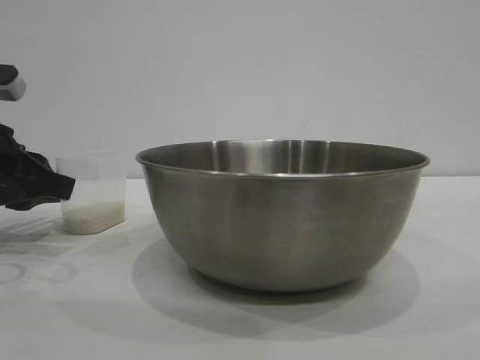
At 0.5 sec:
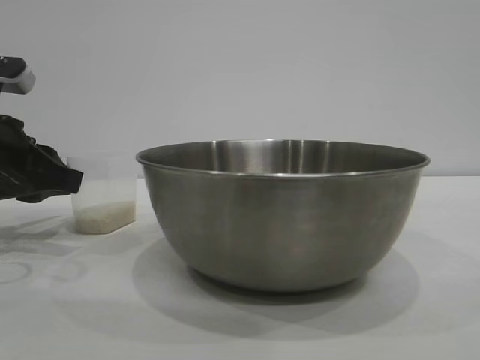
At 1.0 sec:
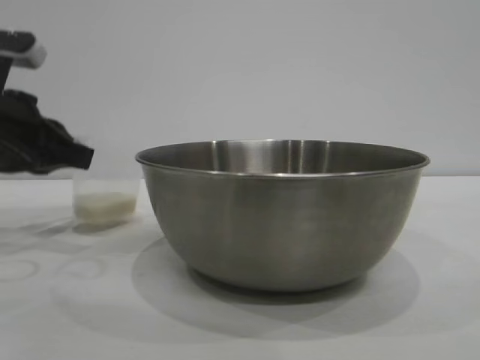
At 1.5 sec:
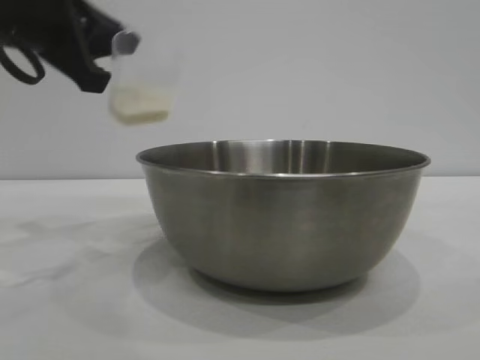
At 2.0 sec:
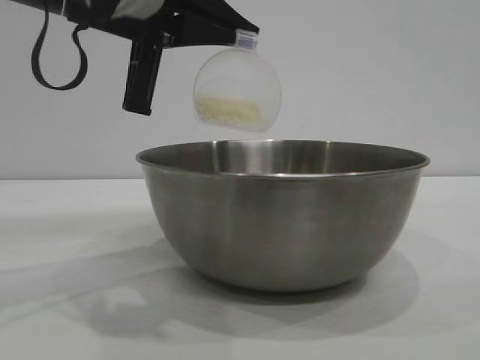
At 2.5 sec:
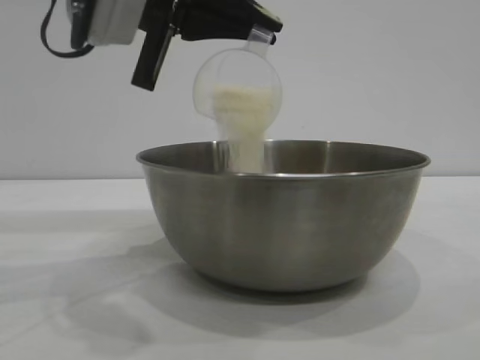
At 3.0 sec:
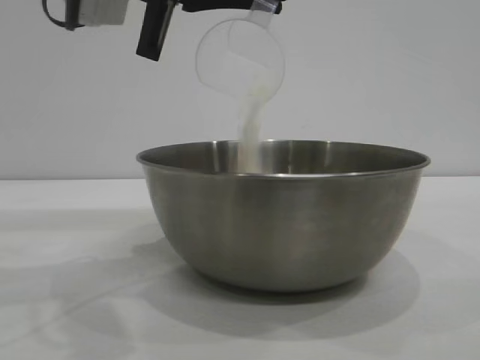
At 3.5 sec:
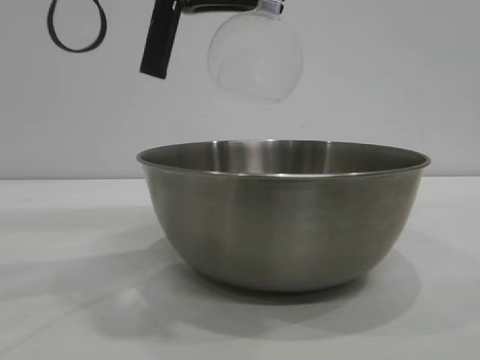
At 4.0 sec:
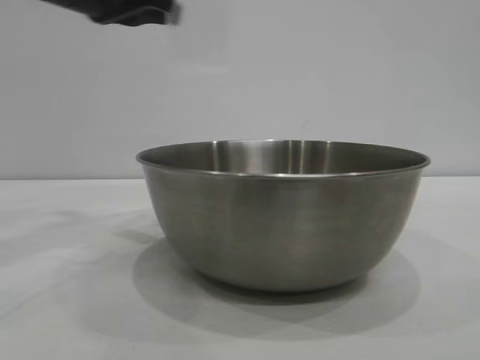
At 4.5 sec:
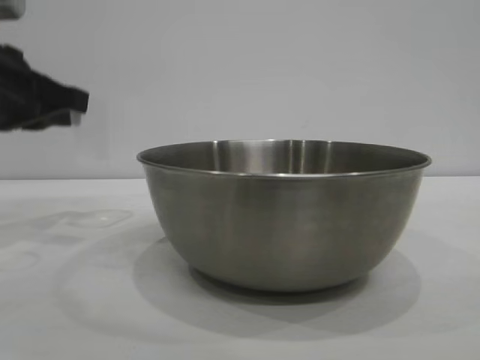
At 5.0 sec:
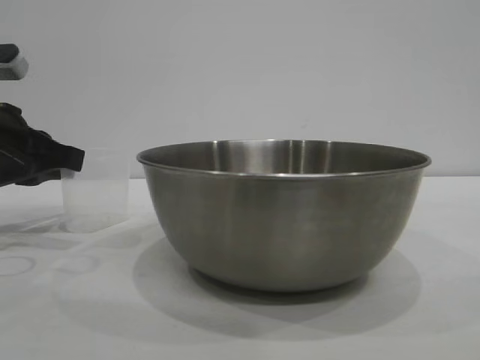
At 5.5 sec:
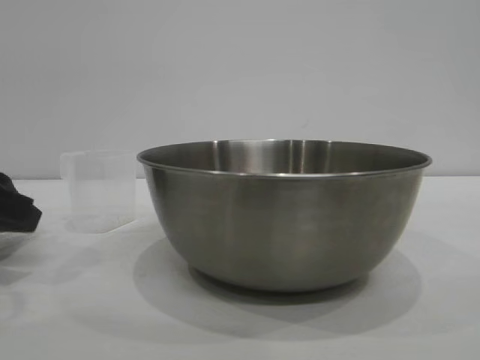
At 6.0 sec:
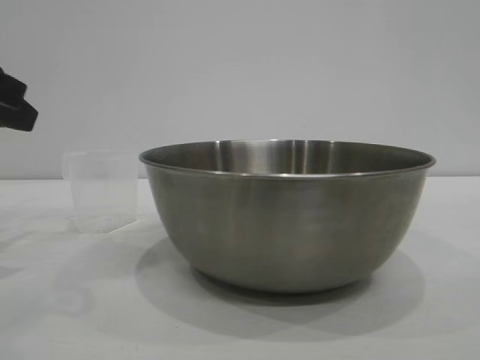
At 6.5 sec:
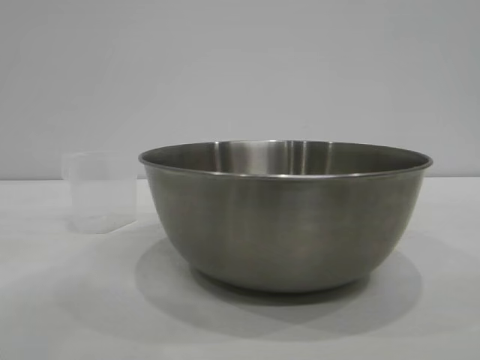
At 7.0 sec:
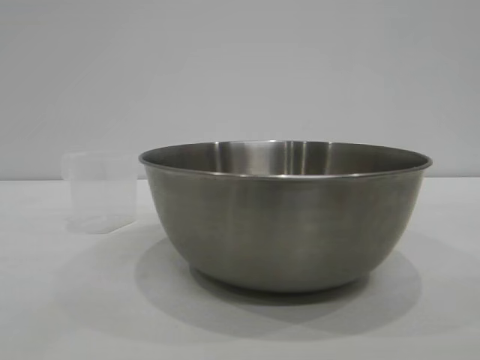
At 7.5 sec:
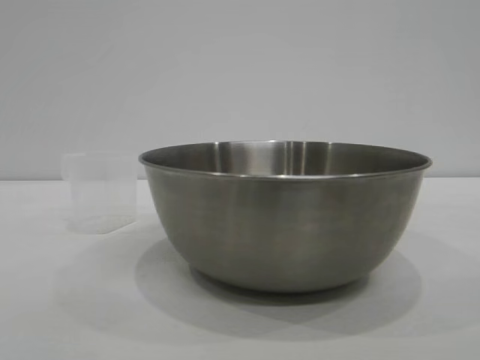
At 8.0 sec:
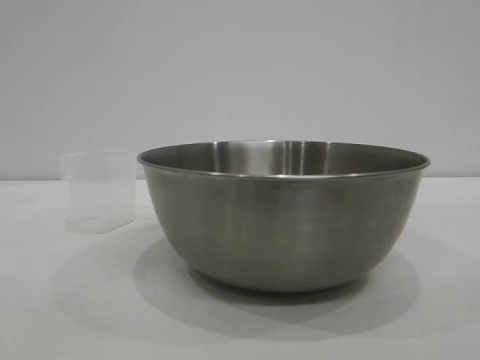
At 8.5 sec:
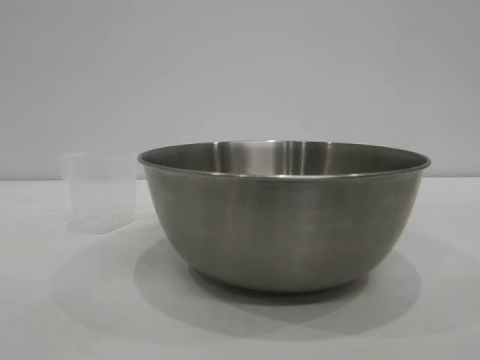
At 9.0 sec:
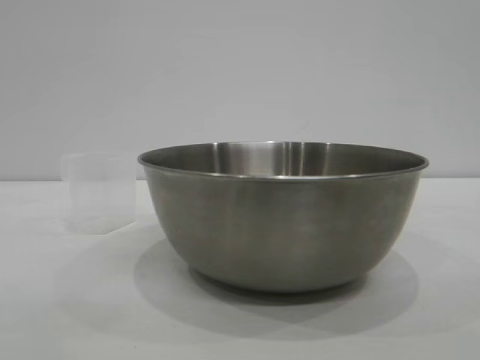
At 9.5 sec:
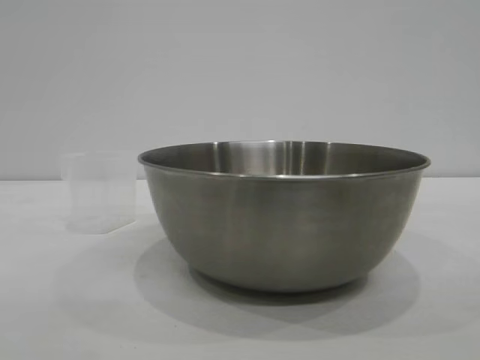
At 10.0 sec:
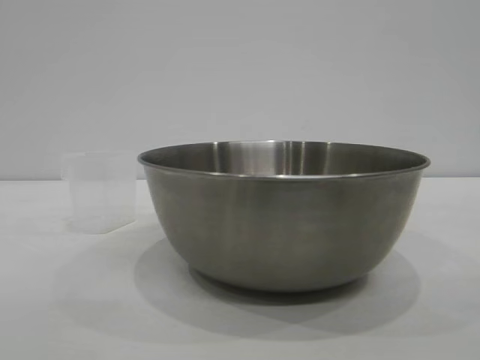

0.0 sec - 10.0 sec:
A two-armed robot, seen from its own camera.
Task of the whole recording: the right gripper grasp the rice container and place it in the center of the table, the left gripper grasp the rice scoop and pour the rice into the rice container.
Step, 1.5 sec - 3.5 sec: Pour the rice from the cup into the bowl with the left gripper.
Step, 4.0 sec - 5.5 sec: Place the cup on the table with the left gripper.
